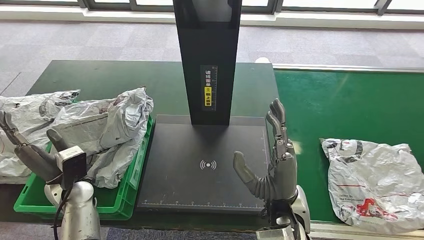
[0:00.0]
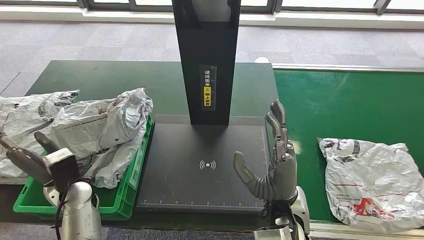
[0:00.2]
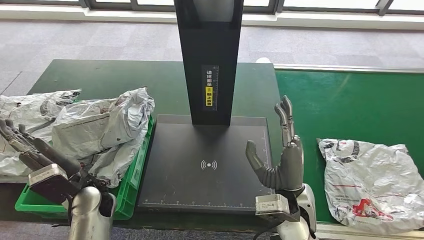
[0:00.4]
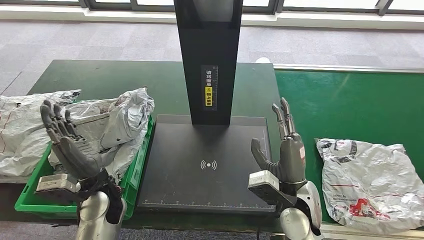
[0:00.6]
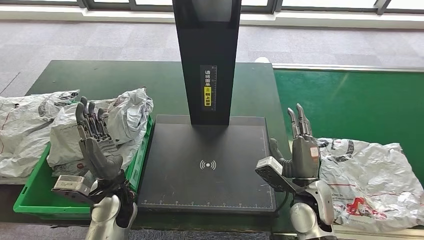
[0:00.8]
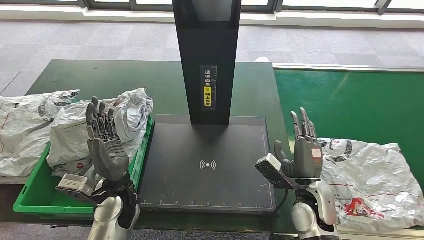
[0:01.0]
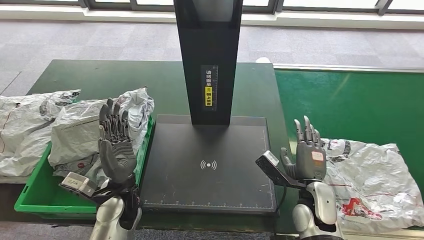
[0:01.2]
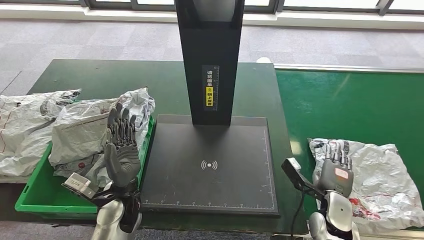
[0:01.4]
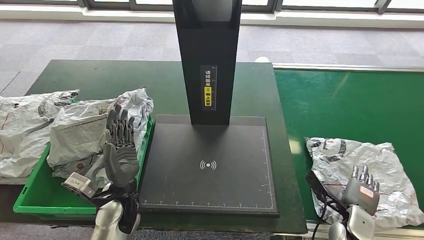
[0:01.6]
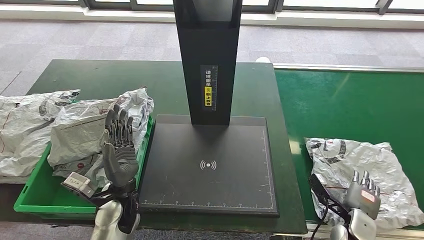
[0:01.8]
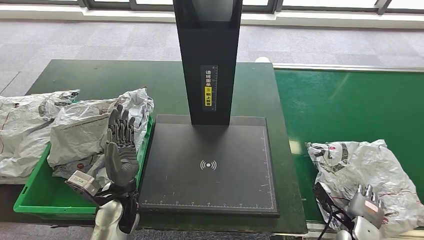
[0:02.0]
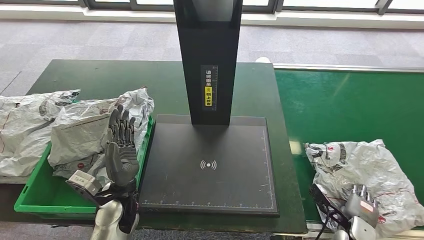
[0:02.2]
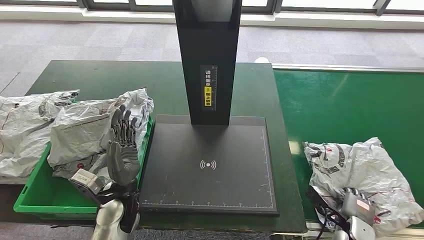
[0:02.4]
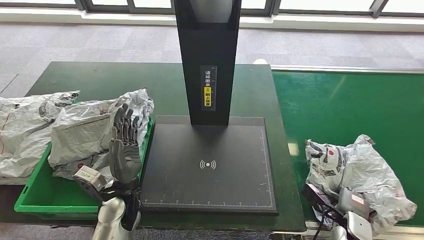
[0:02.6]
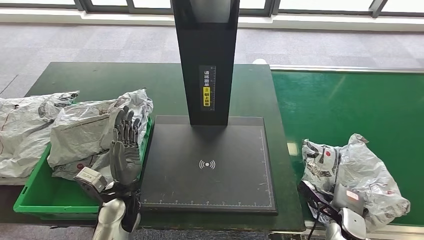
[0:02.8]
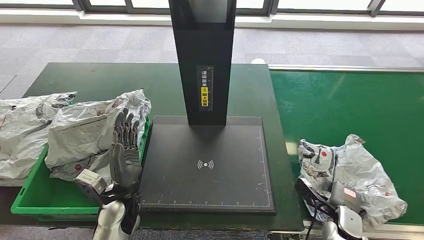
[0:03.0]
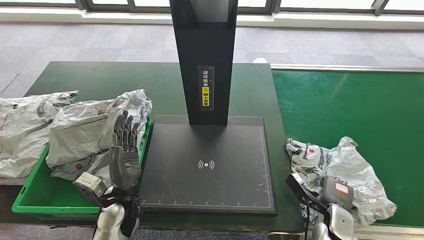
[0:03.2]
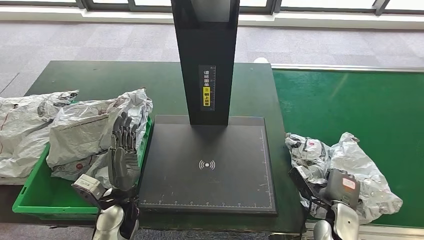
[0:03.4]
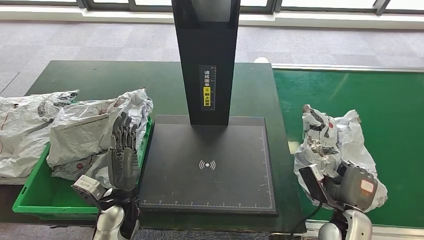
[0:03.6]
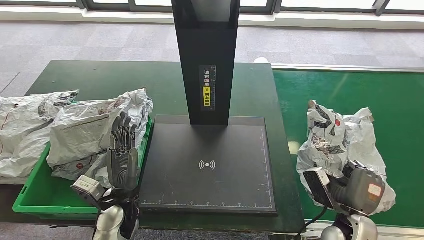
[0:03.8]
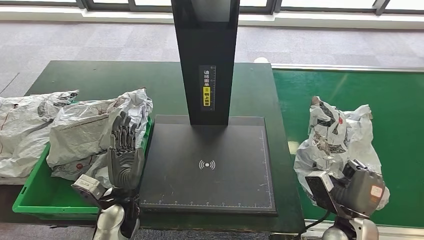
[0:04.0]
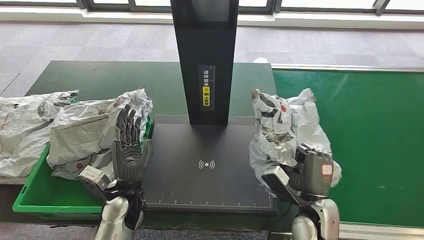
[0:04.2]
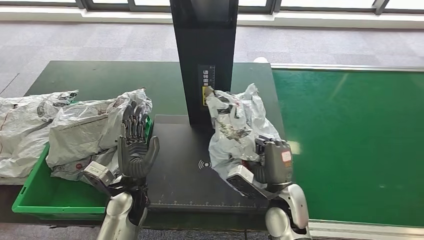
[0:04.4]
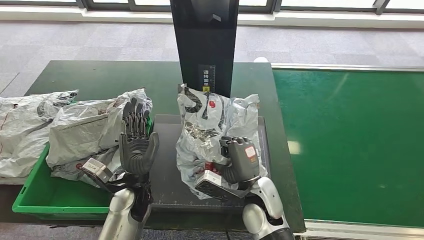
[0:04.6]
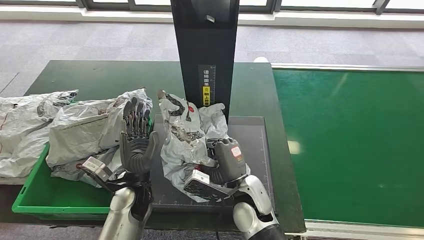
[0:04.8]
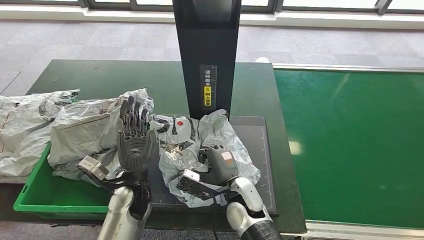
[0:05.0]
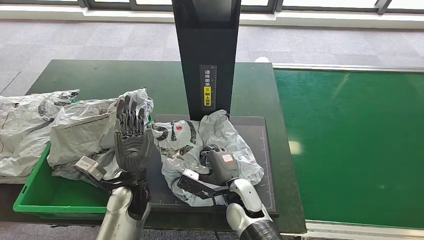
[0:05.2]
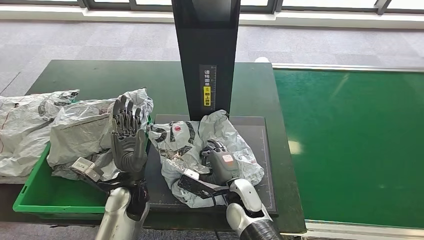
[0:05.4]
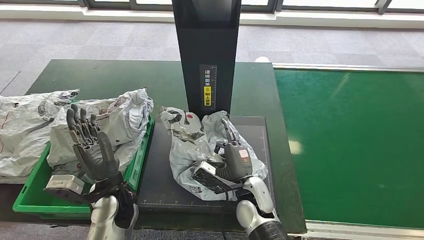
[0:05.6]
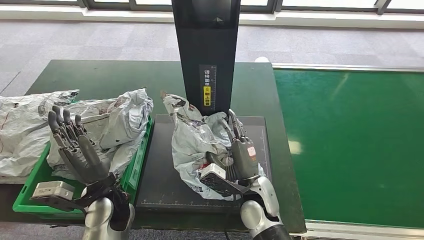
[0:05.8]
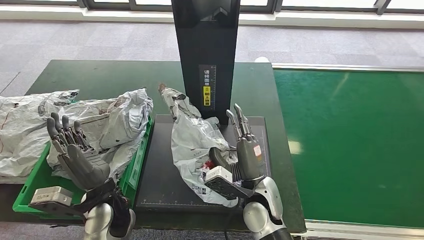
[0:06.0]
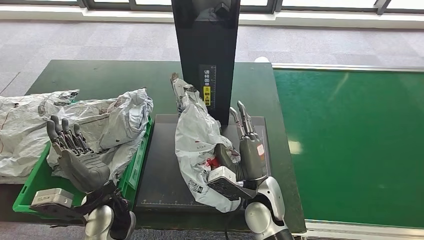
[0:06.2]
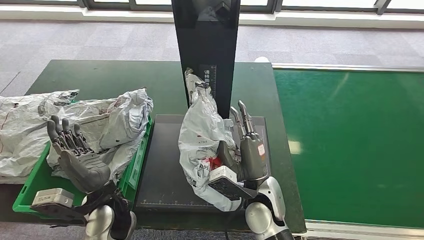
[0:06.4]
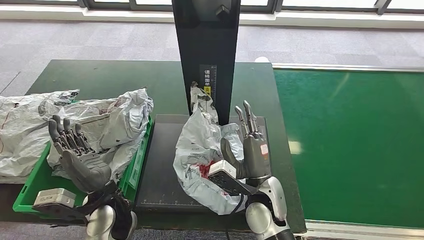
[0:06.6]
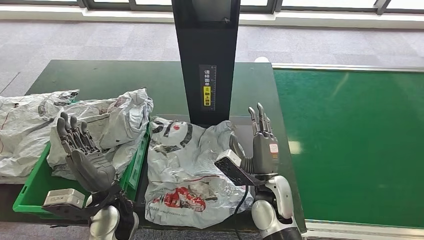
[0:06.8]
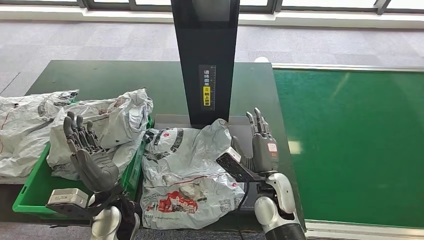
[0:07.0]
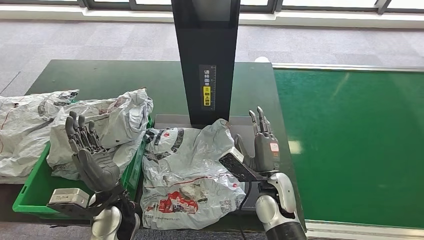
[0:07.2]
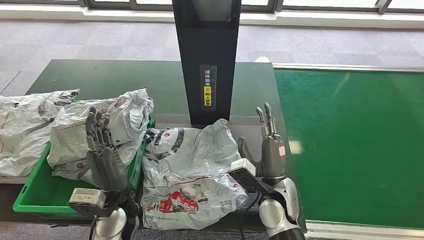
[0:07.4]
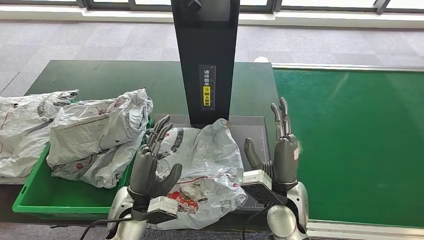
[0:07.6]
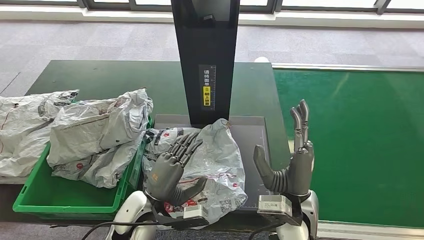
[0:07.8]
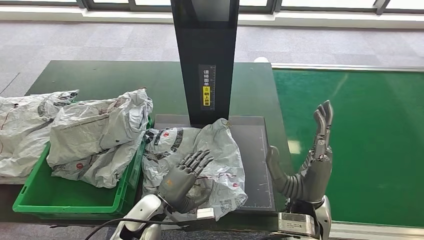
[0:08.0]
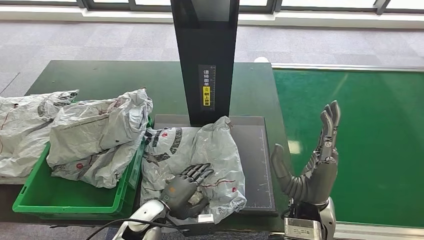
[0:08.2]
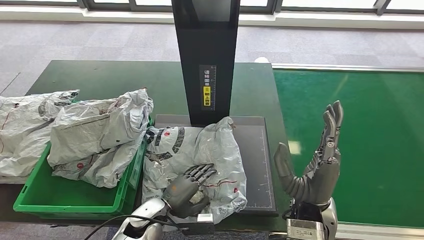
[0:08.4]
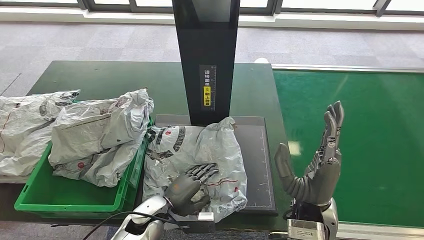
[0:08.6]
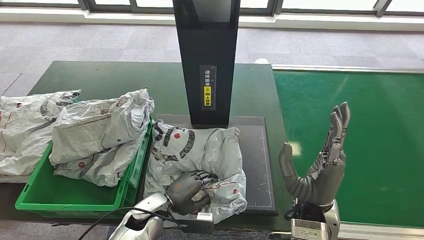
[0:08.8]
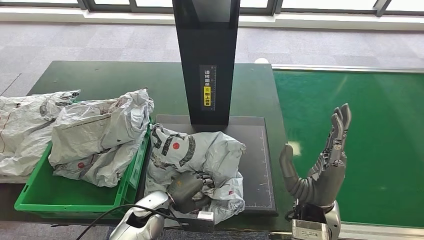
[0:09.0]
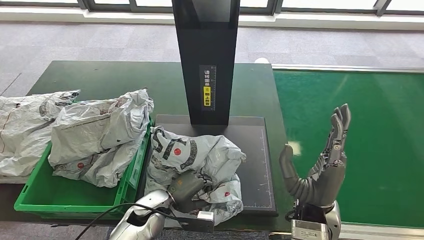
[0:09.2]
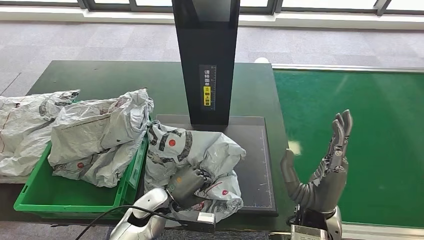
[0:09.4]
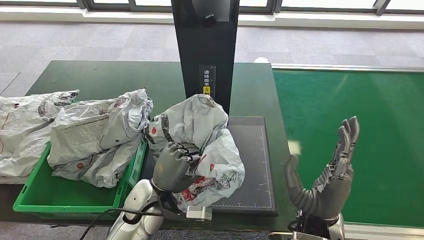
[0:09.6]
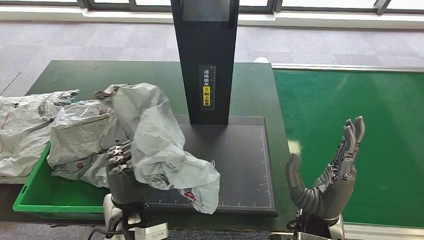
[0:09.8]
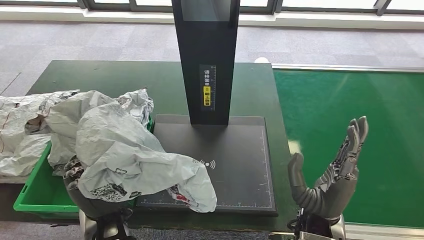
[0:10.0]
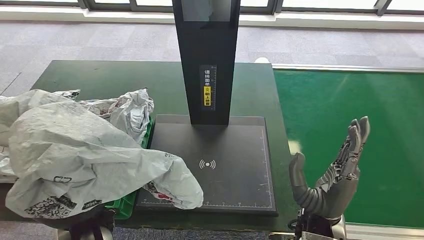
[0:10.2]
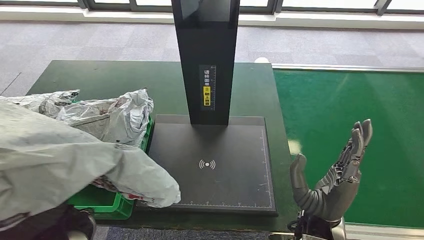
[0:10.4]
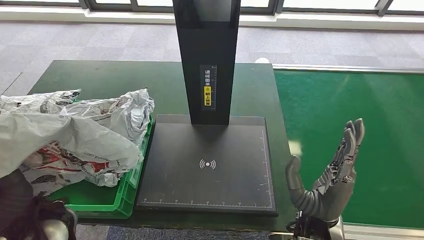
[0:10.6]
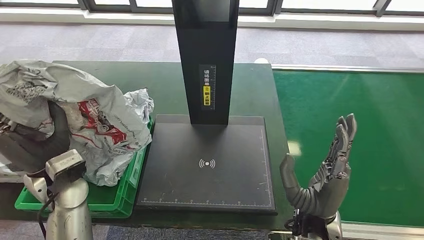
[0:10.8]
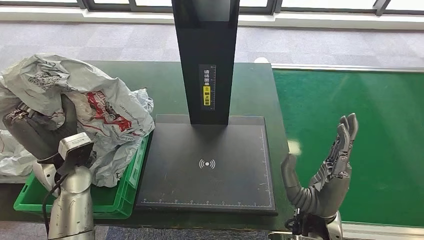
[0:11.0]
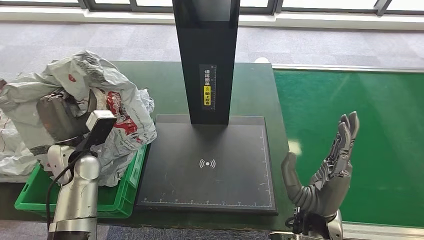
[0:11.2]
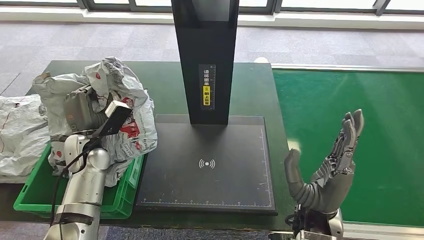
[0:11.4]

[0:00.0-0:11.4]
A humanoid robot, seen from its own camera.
Step, 0:00.0 to 0:04.0: Pick up the parcel from the conveyor belt.
Step, 0:04.2 to 0:07.4: Place the parcel onto the inbound machine.
Step, 0:07.8 to 0:10.8: Pick up the parcel from the inbound machine.
0:05.6 to 0:07.2: The right hand travels to the right by some 5 cm.
0:10.0 to 0:11.4: The left hand shifts approximately 20 cm forward and to the left.

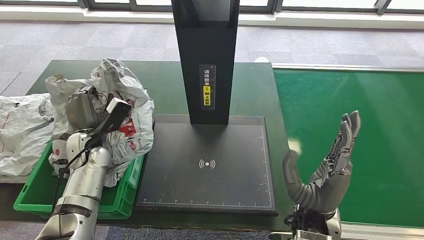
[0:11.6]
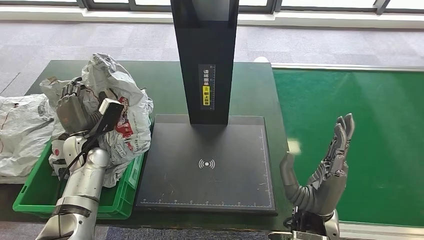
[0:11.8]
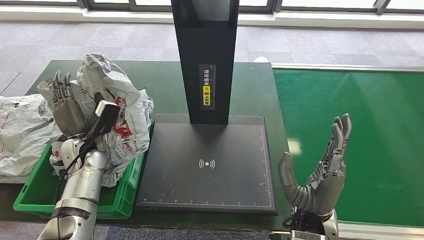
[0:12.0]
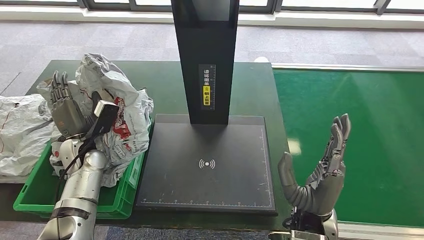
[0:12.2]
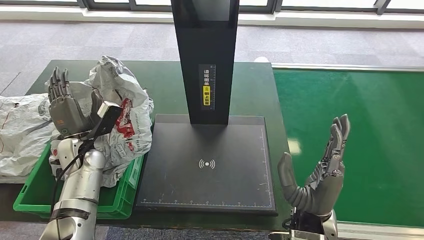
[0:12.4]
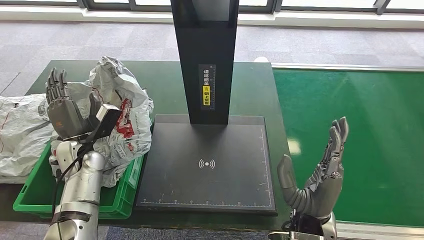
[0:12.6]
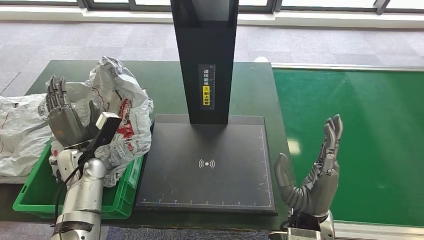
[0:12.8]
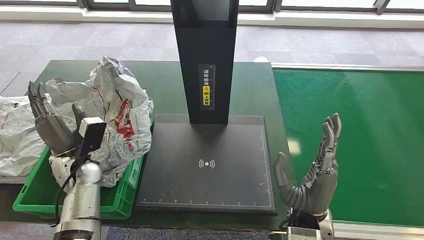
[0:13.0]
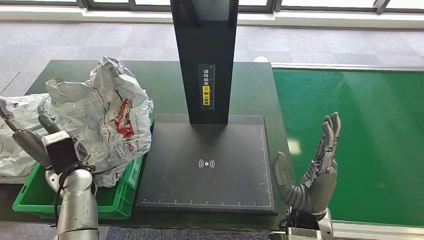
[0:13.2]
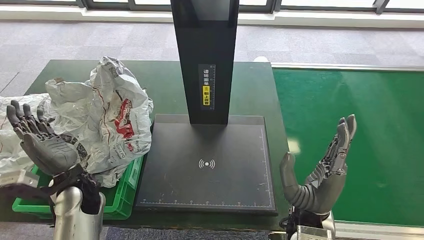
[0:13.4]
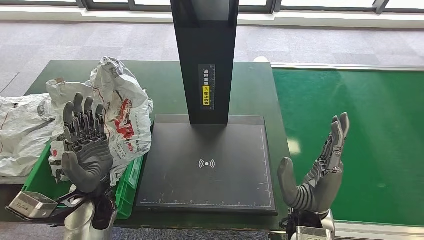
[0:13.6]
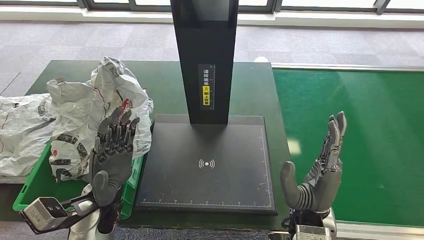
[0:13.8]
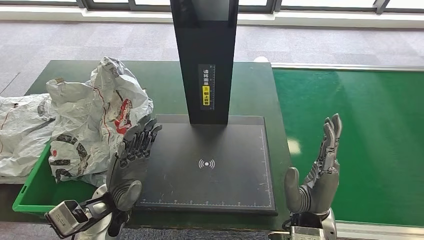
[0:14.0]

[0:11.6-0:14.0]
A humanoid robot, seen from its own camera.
Step, 0:11.6 to 0:14.0: Place the parcel into the delivery box.
0:11.6 to 0:12.8: There are only small adjustments of the hands.
0:12.8 to 0:14.0: The left hand heads to the right and backward, covering approximately 15 cm.
